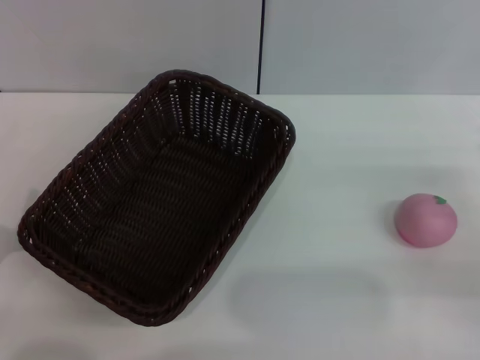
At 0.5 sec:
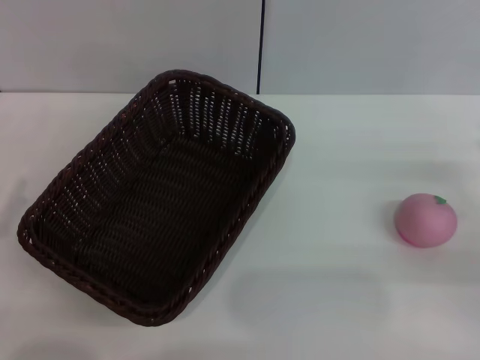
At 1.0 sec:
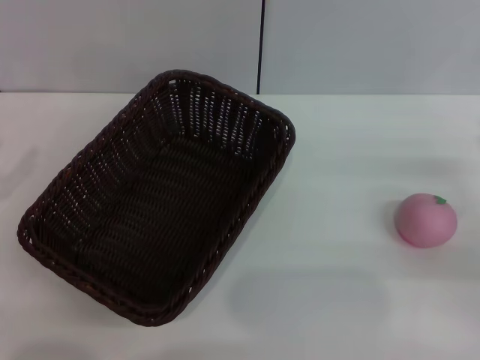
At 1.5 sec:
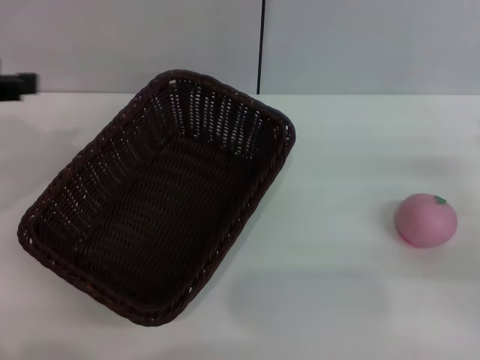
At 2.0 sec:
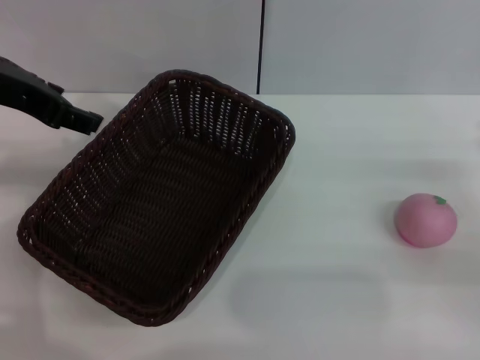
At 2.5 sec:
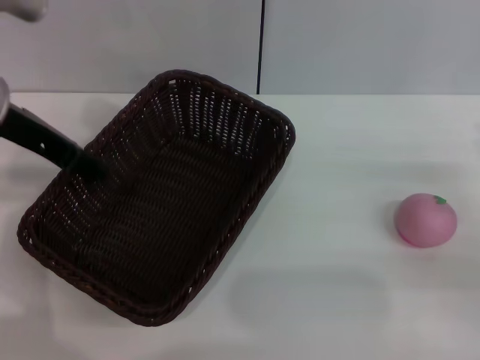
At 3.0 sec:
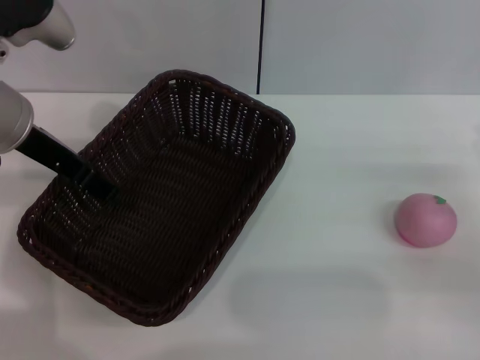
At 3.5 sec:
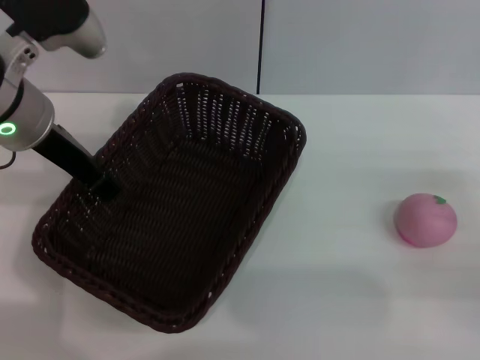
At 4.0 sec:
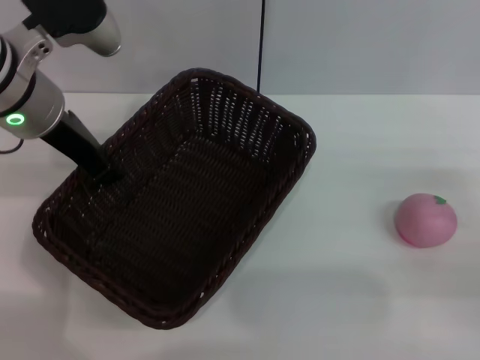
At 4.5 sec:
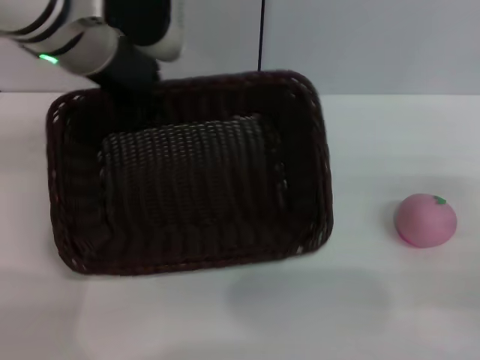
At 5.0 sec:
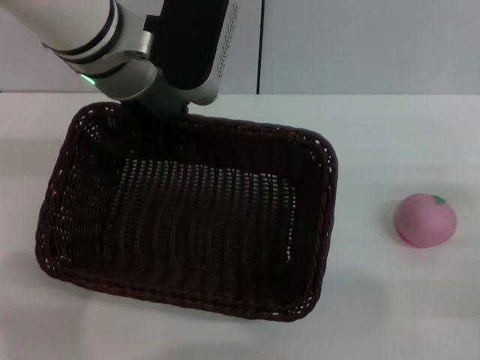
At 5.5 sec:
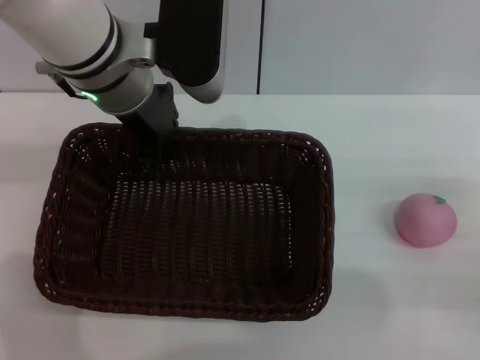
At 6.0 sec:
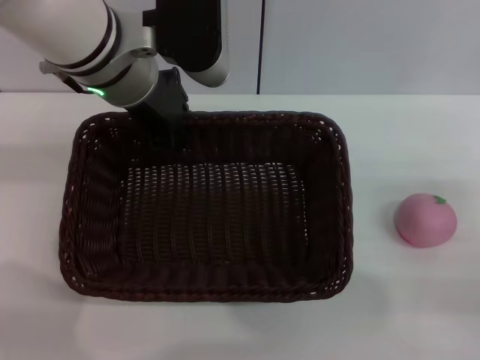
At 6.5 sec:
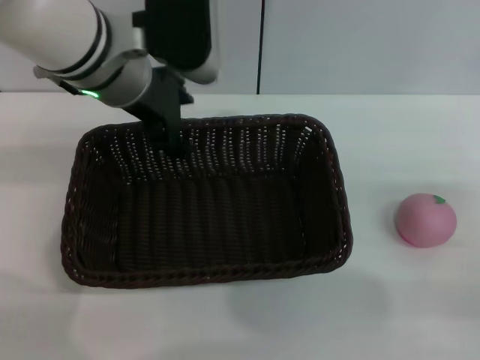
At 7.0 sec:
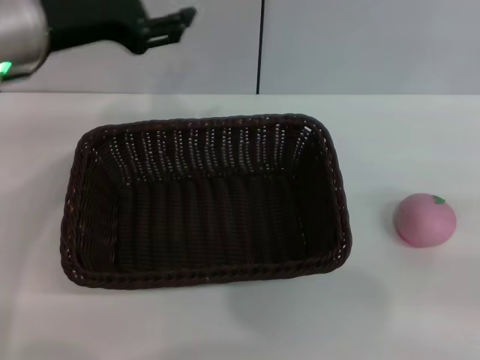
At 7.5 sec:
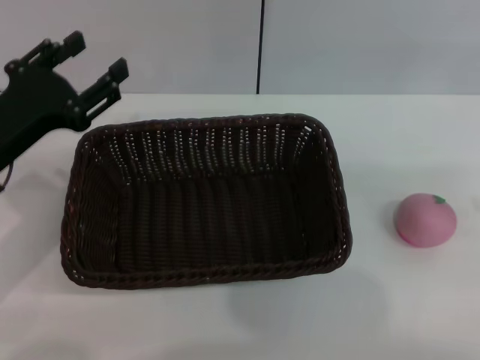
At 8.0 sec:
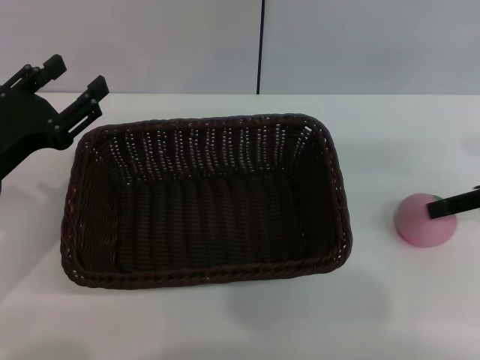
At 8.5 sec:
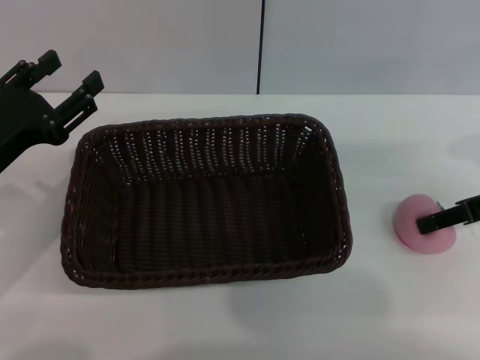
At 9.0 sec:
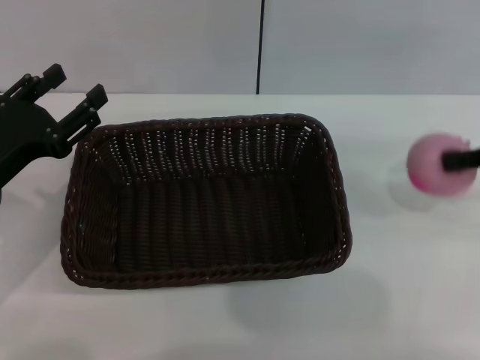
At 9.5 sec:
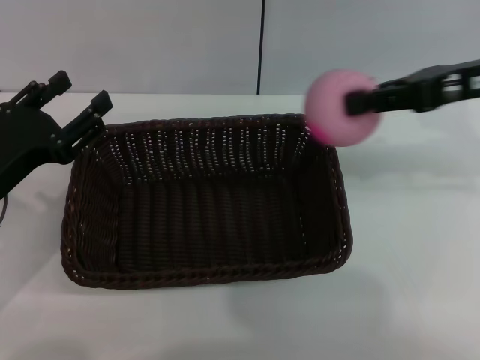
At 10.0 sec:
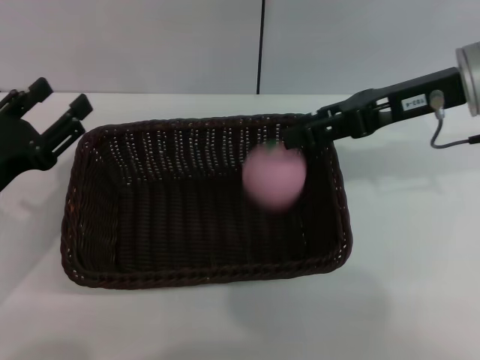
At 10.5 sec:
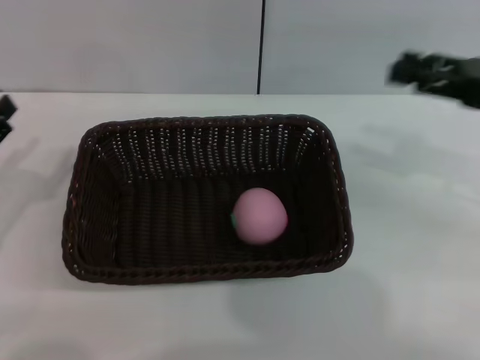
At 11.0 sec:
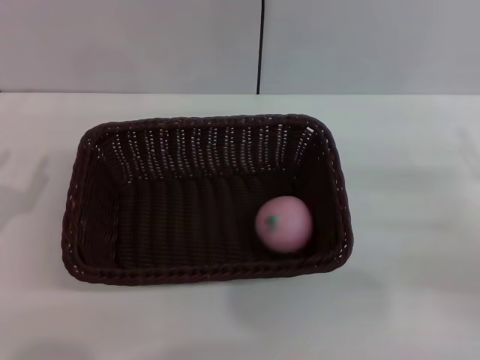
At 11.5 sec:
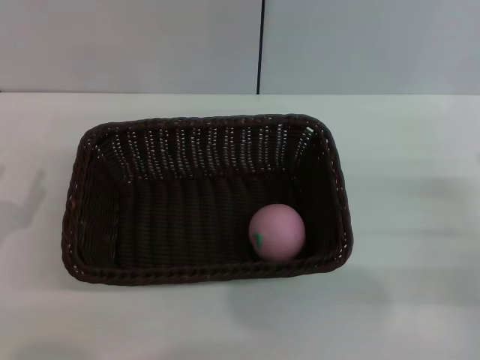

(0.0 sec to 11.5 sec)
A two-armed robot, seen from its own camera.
Step, 0.0 sec - 4.5 sec: Pick up the dark basket with the left gripper.
Step, 5.0 sec - 6.5 sec: Place the dark basket in the center of view with the right gripper.
Step, 7.0 sec - 9.0 sec: Pick up the peach with the left gripper.
Step, 9.5 sec - 10.0 sec: Place the peach into the basket with the left gripper.
0.0 sec - 2.0 sec: The left gripper moves upward and forward, roughly 30 cm.
2.0 sec - 4.0 sec: The left gripper shifts roughly 5 cm downward, and closes up.
4.0 sec - 6.0 sec: The left gripper heads to the right, covering about 10 cm.
6.0 sec - 7.5 sec: The left gripper goes some 20 cm to the left, backward and downward, and opens; the right gripper shifts some 15 cm upward.
7.5 sec - 9.5 sec: The right gripper heads to the left and forward, covering some 15 cm, and closes up.
9.5 sec - 11.5 sec: The left gripper heads downward and to the left, covering roughly 10 cm; the right gripper travels downward and backward by roughly 20 cm, and opens.

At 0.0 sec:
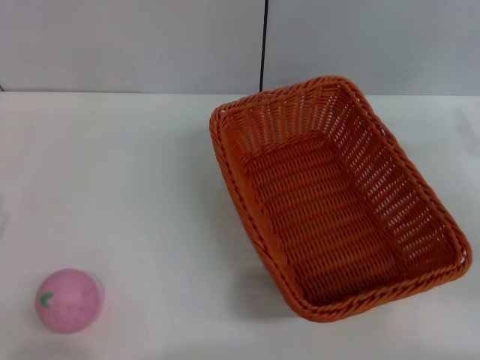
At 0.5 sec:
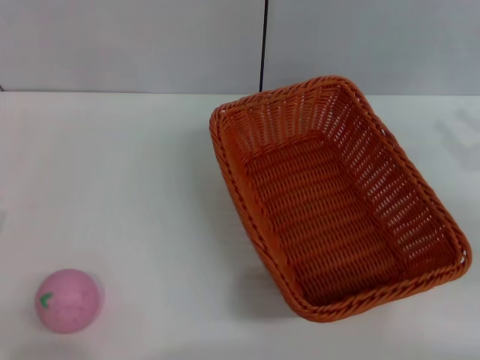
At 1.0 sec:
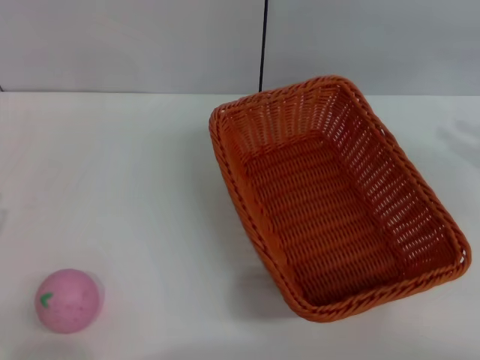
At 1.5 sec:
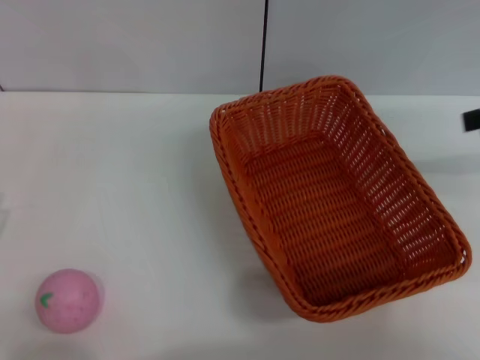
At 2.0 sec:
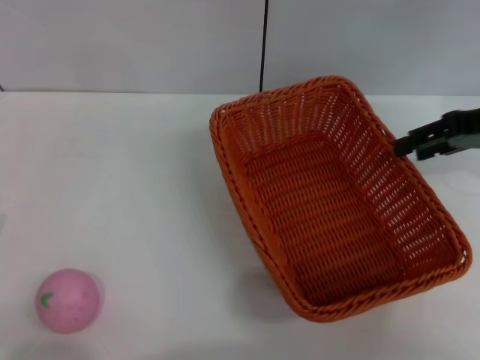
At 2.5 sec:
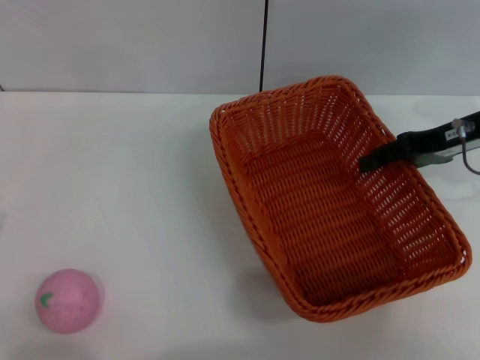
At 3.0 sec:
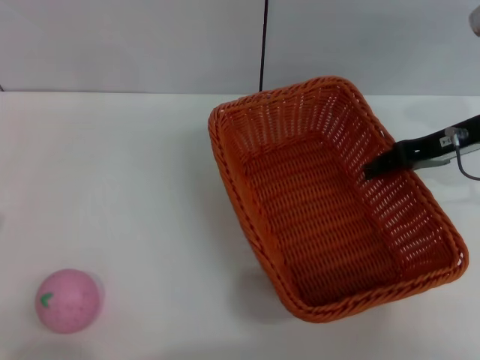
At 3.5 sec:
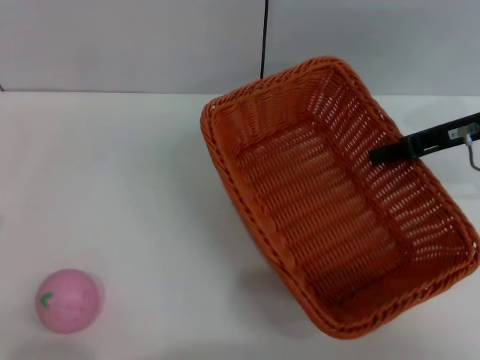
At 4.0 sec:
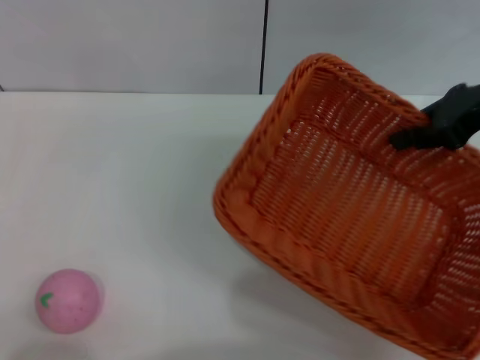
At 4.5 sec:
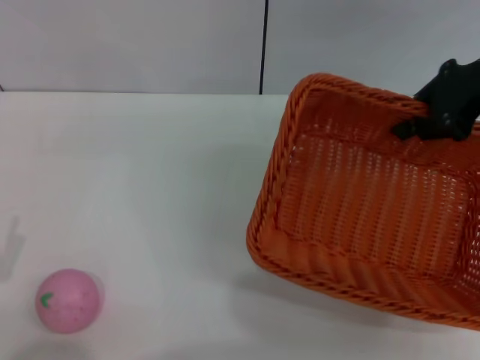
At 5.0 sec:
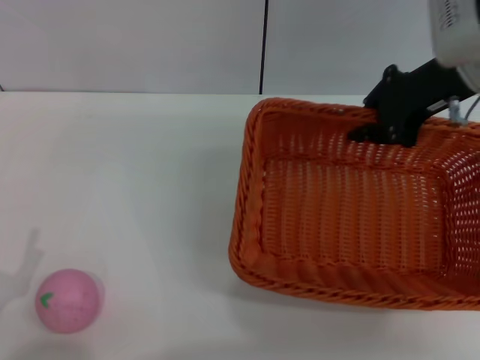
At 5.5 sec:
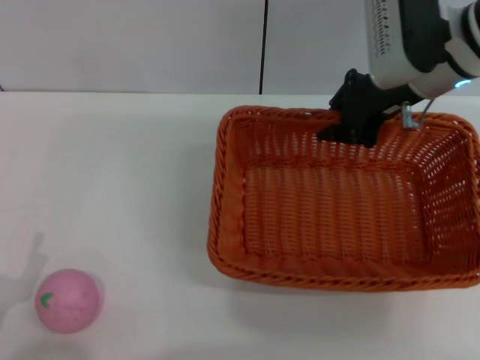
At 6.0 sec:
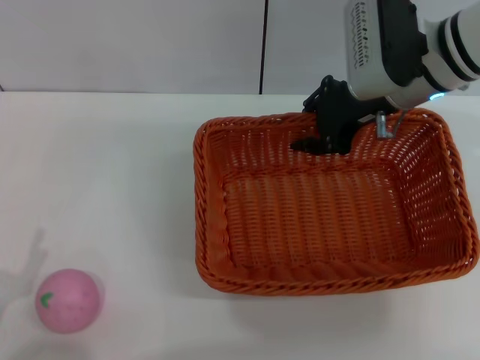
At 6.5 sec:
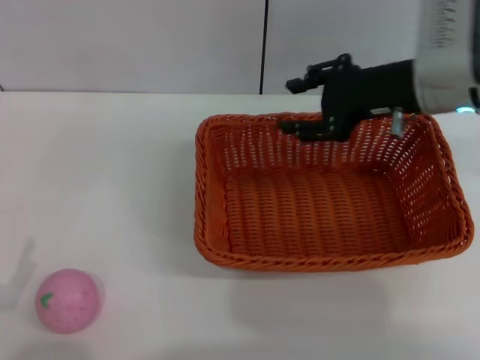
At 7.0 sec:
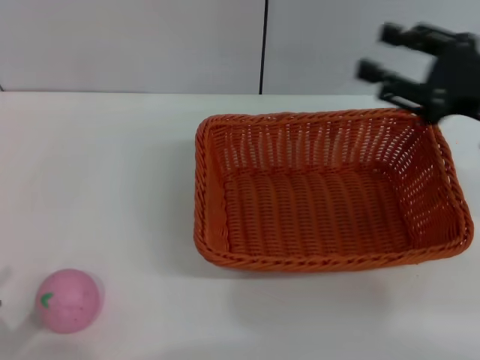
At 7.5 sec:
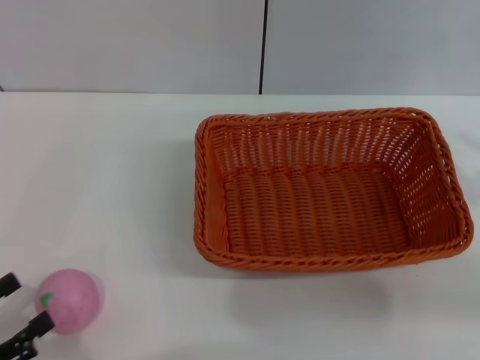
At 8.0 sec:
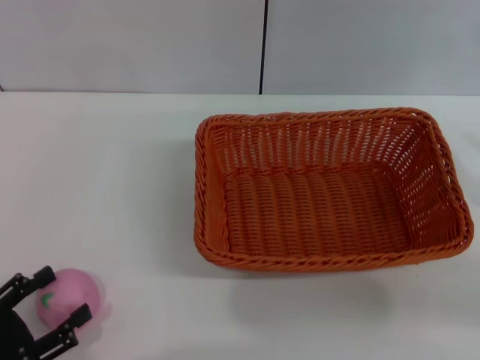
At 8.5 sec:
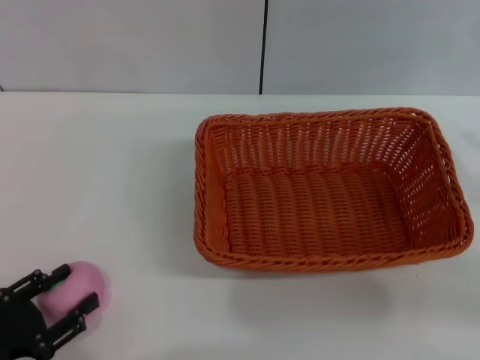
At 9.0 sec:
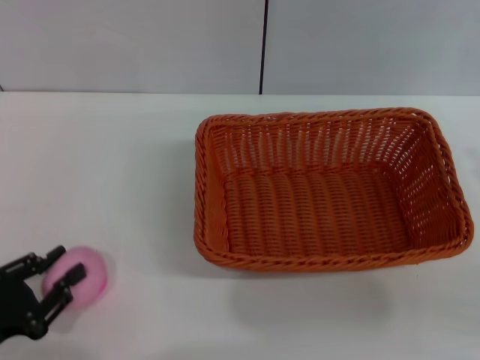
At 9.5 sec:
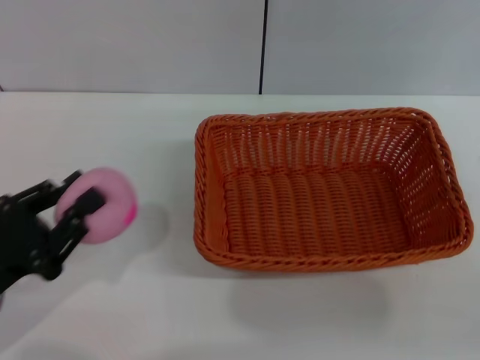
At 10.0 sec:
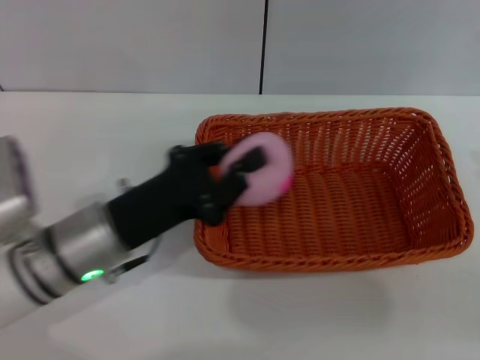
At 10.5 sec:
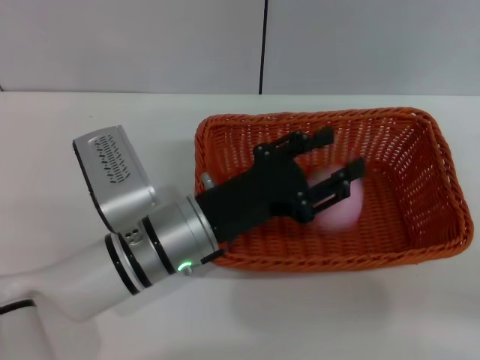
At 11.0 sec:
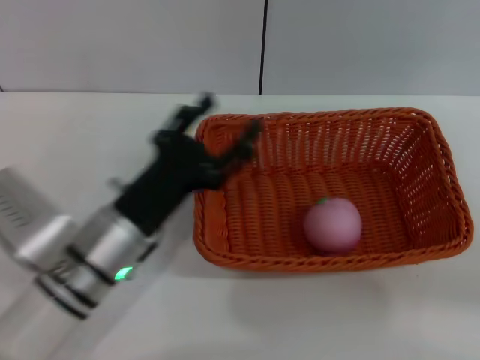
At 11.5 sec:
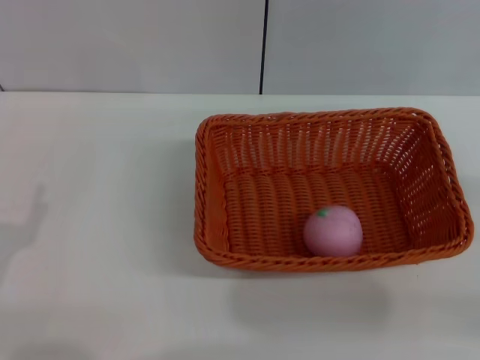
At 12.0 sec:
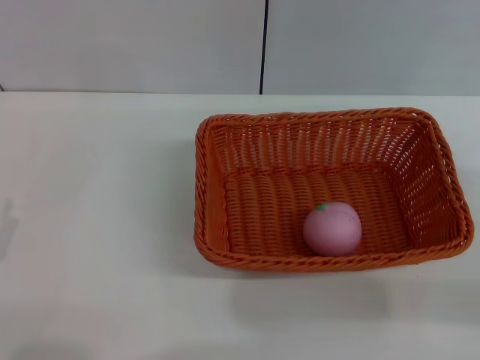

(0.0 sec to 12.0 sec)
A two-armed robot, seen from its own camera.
Step, 0.0 sec - 3.0 sec: Pick up the light basket with the right gripper.
Step, 4.0 sec - 6.5 sec: Place the light basket in the center of view with the right gripper.
Step, 7.0 sec - 9.0 sec: Pick up the peach with the left gripper.
Step, 9.5 sec - 10.5 sec: Place the peach into the basket with the left gripper.
0.0 sec - 2.0 sec: The right gripper moves upward and forward, some 15 cm.
2.0 sec - 4.0 sec: The right gripper closes its fingers.
4.0 sec - 6.0 sec: The right gripper is displaced to the left by some 10 cm.
6.0 sec - 8.0 sec: The right gripper is displaced to the right and backward by about 25 cm, and opens up.
8.0 sec - 10.0 sec: The left gripper is displaced to the right and forward by roughly 20 cm, and closes.
10.0 sec - 12.0 sec: The left gripper travels to the left and backward by approximately 20 cm, and opens its fingers.
